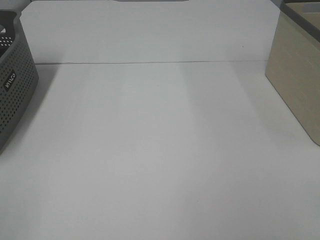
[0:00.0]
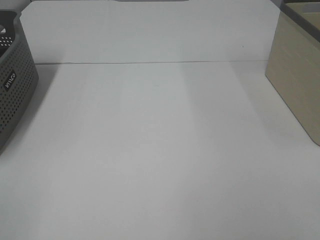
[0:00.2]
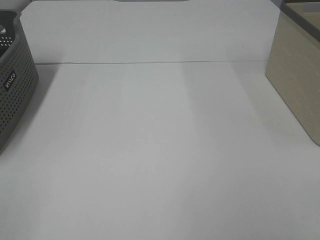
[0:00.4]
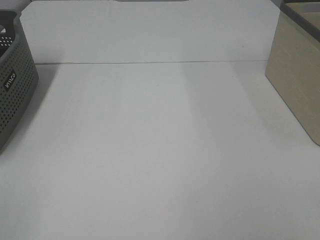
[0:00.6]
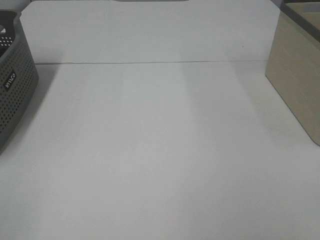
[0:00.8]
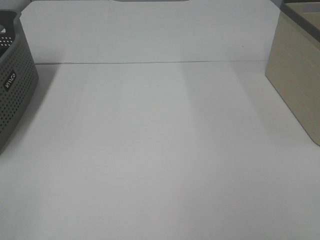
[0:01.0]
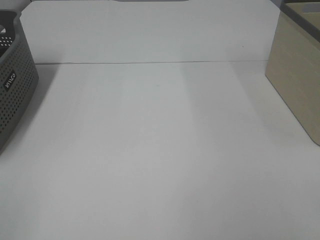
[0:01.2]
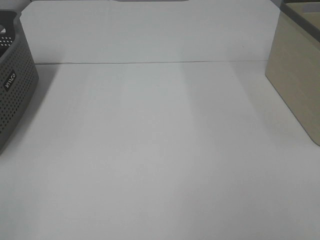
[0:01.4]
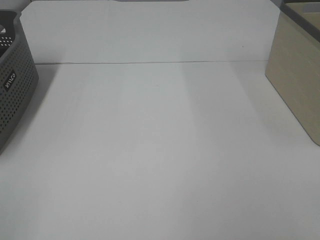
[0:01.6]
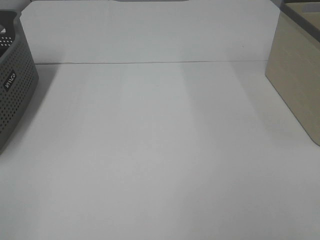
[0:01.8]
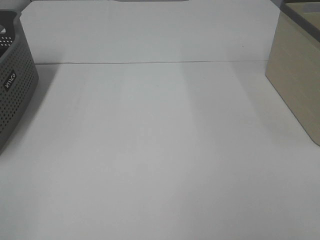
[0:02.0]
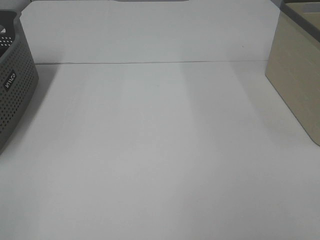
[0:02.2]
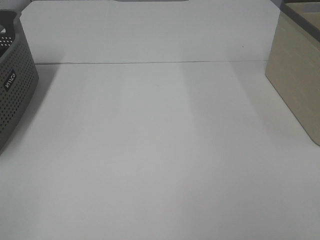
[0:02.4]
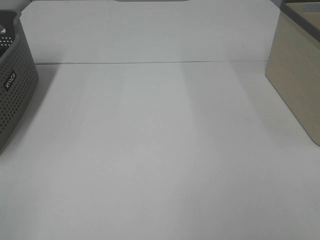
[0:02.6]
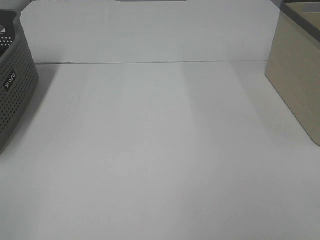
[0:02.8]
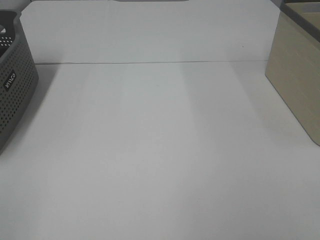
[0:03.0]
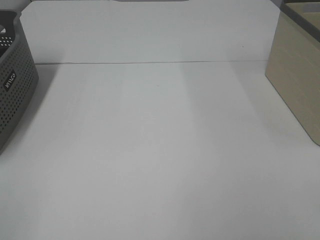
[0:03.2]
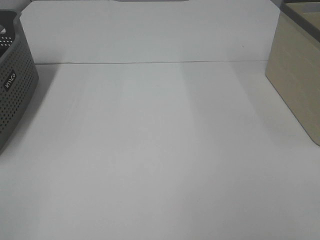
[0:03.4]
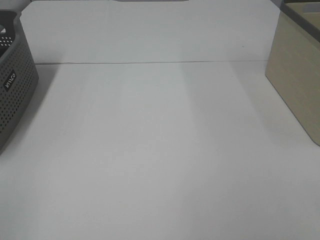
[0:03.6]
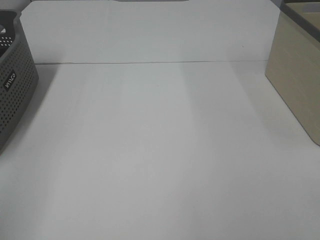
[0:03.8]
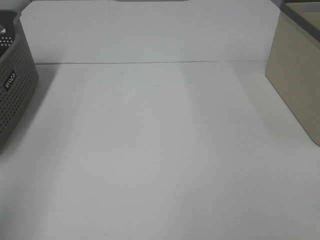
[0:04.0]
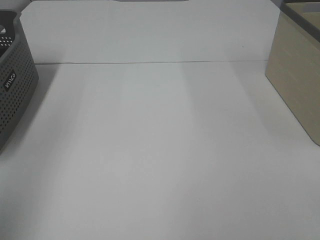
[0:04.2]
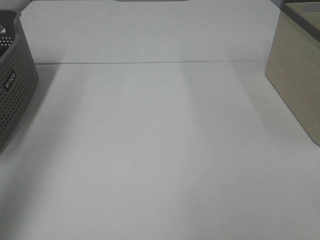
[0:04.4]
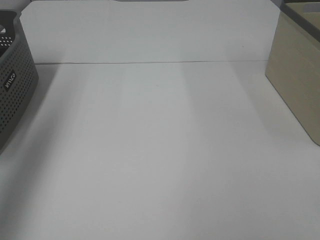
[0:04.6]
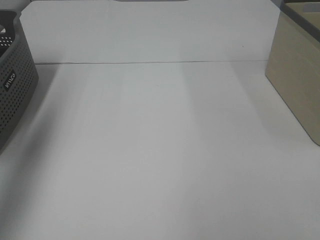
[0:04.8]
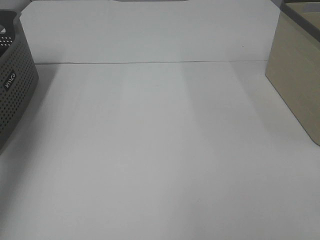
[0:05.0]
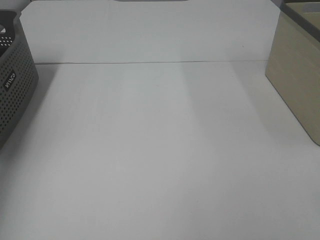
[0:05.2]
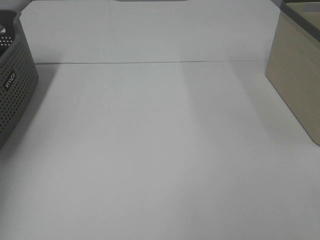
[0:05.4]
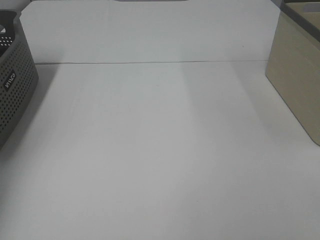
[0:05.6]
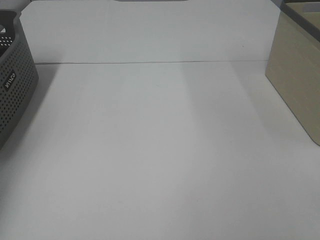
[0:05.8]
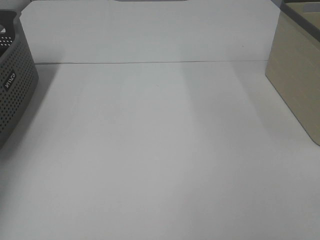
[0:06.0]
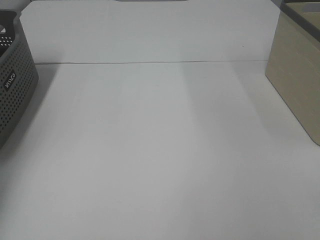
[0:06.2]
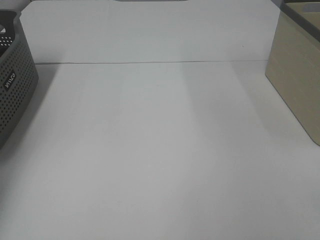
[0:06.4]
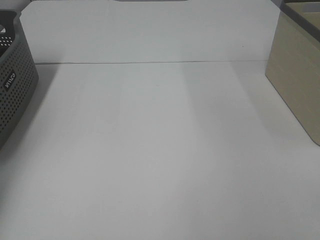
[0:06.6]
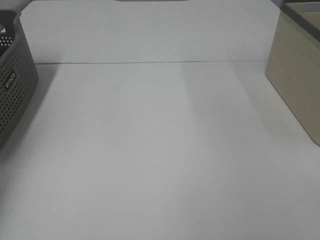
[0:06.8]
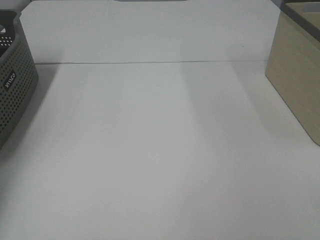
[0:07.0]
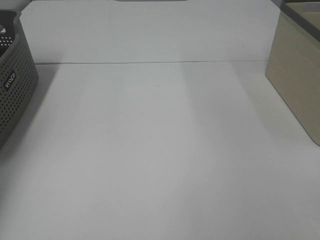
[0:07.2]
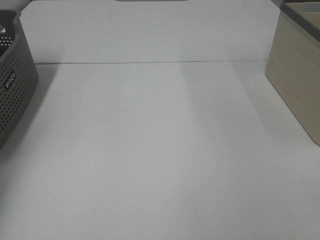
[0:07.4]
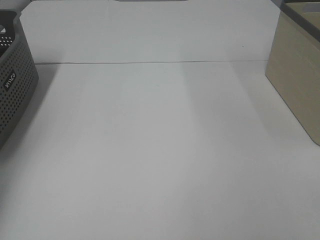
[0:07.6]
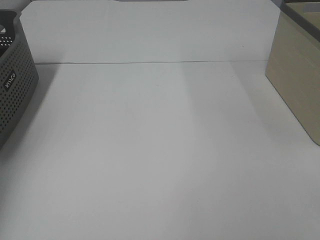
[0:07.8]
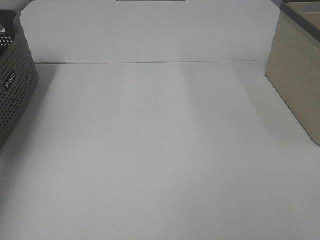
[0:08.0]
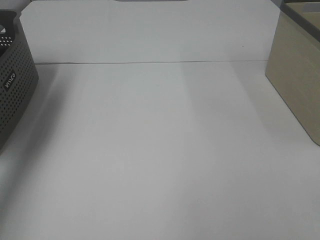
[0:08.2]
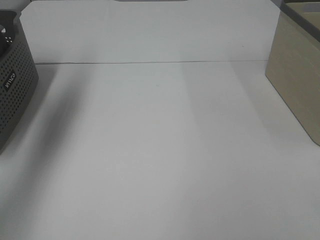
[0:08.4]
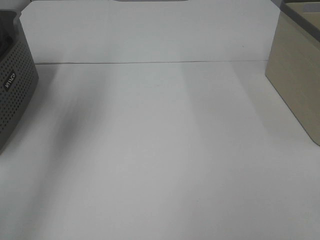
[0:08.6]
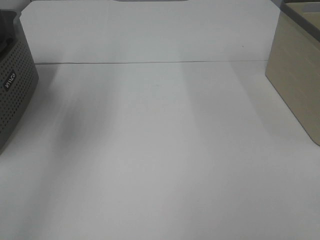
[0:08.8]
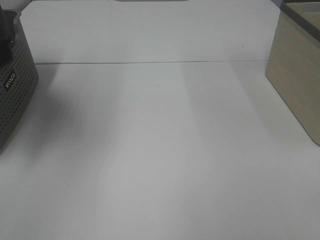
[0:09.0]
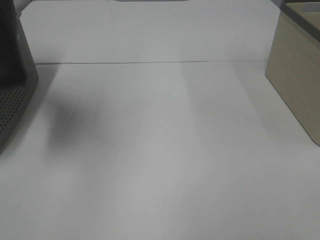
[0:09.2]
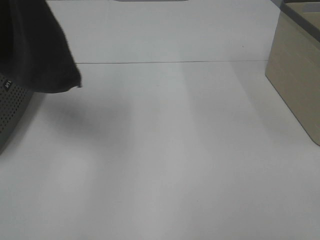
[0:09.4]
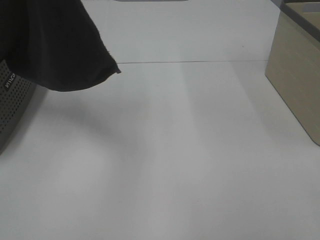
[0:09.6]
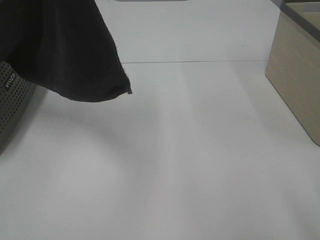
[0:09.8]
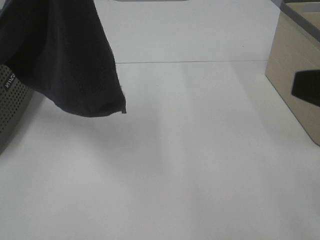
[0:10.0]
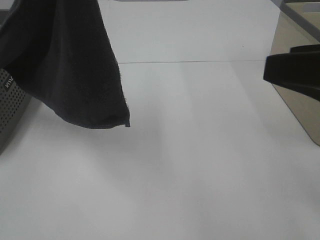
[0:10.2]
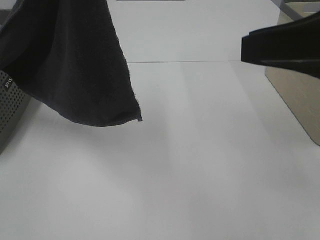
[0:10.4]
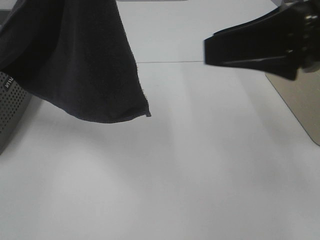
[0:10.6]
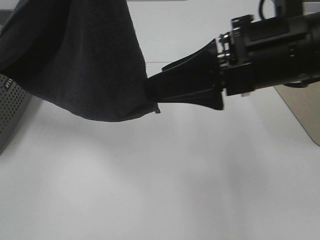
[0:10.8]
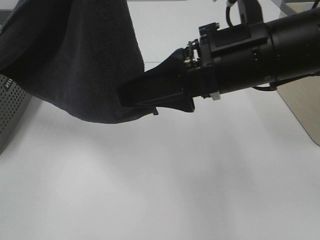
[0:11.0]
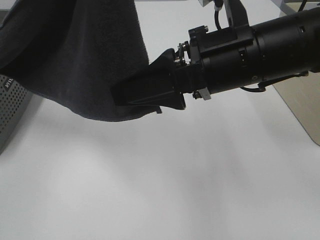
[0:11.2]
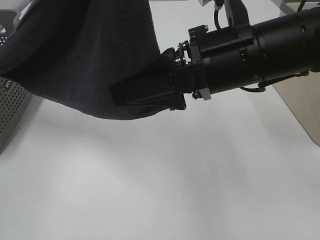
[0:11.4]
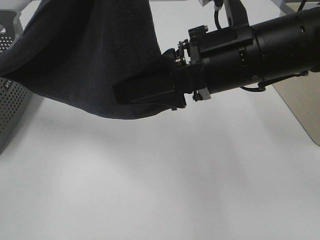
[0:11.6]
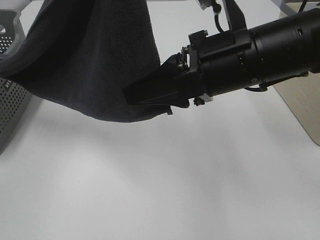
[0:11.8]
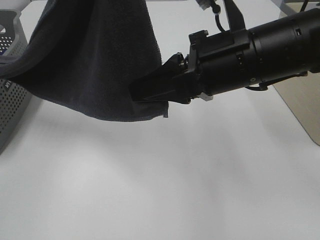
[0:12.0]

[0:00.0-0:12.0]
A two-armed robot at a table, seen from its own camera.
Task of the whole recording: Remove the towel and place it.
0:00.0 to 0:03.0: Both grippers stay put.
0:03.0 to 0:04.4: The left gripper shifts approximately 25 cm forward and upward.
0:04.4 to 0:06.0: The left gripper travels forward, downward and to the left by some 35 cm.
0:07.6 to 0:09.0: The left gripper heads upward, to the right and backward, covering roughly 35 cm.
0:09.0 to 0:10.4: The left gripper heads to the right and backward, covering roughly 15 cm; the right gripper heads forward, covering about 20 cm.
0:10.4 to 0:12.0: The right gripper goes approximately 15 cm to the left and downward, and closes.

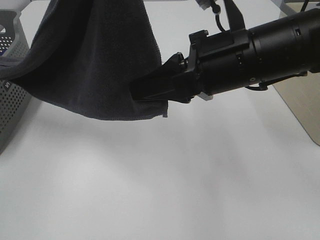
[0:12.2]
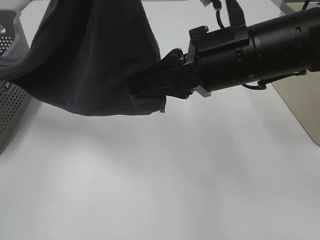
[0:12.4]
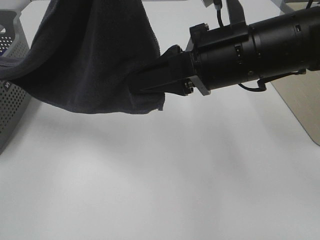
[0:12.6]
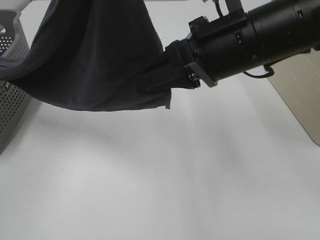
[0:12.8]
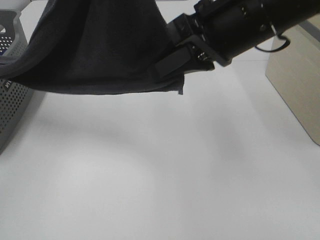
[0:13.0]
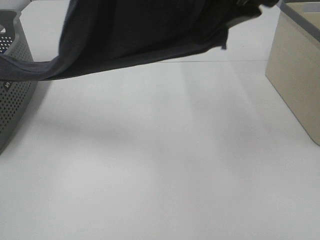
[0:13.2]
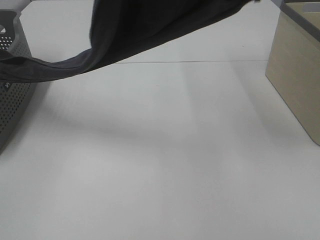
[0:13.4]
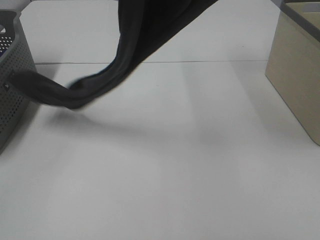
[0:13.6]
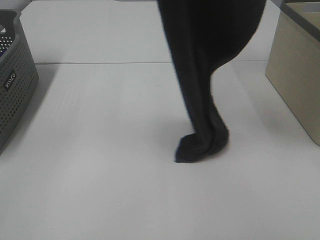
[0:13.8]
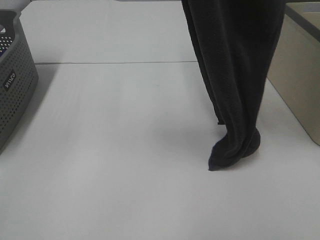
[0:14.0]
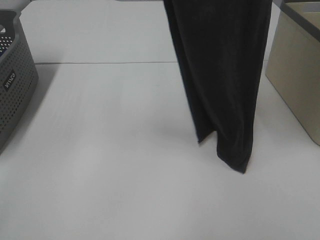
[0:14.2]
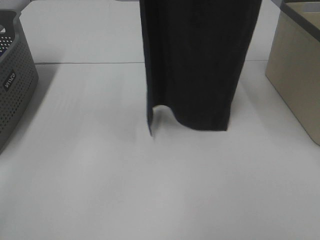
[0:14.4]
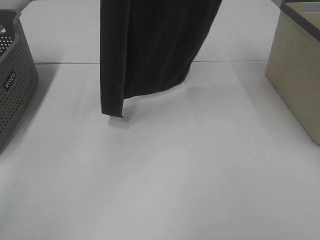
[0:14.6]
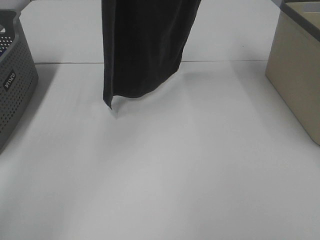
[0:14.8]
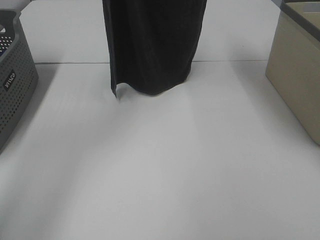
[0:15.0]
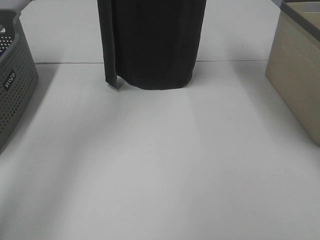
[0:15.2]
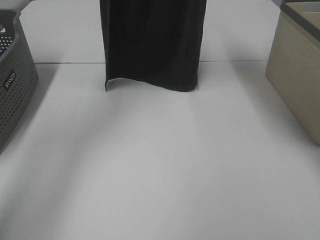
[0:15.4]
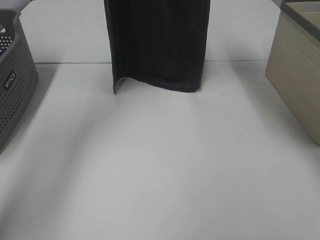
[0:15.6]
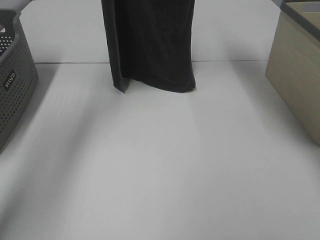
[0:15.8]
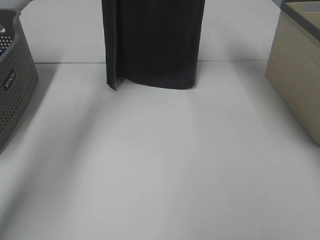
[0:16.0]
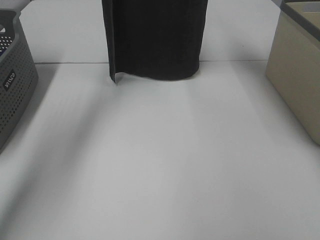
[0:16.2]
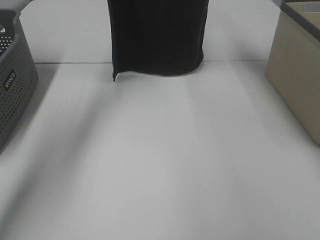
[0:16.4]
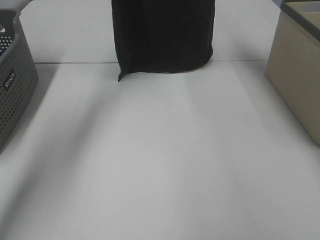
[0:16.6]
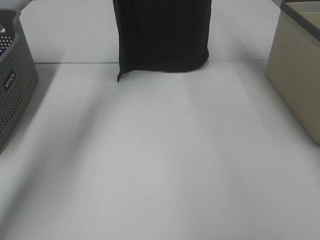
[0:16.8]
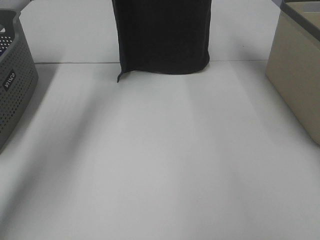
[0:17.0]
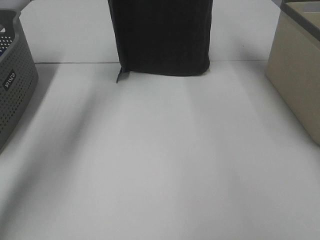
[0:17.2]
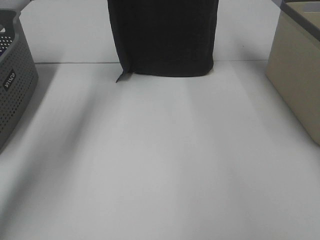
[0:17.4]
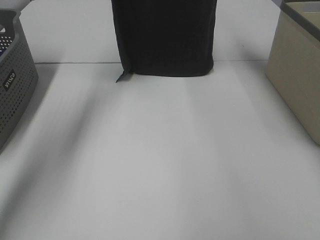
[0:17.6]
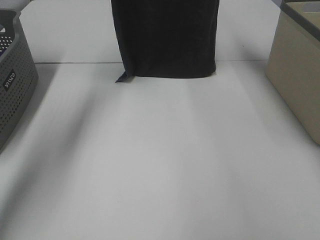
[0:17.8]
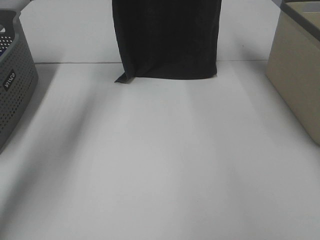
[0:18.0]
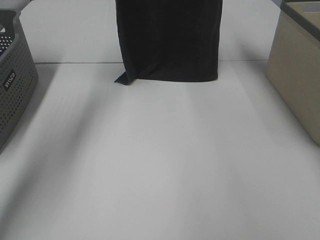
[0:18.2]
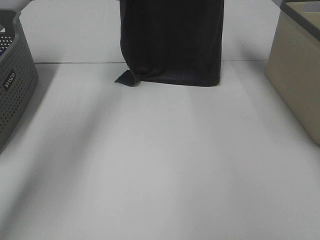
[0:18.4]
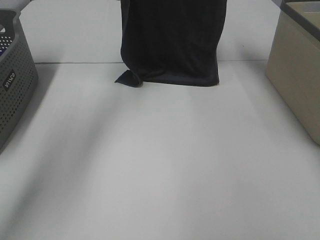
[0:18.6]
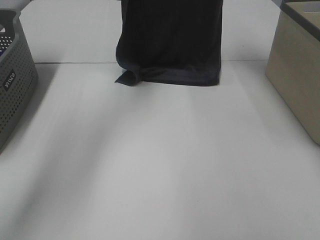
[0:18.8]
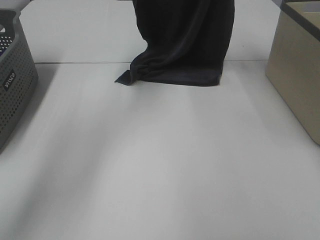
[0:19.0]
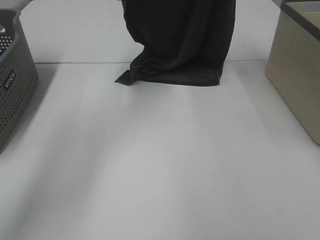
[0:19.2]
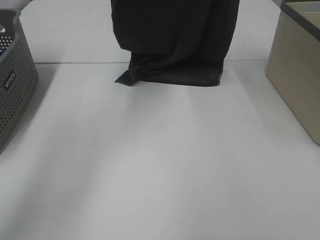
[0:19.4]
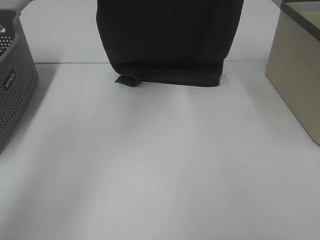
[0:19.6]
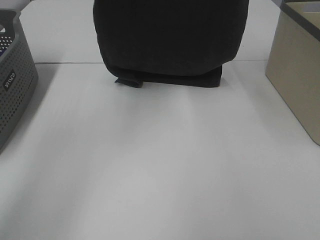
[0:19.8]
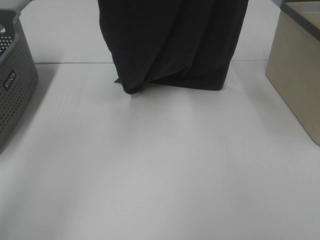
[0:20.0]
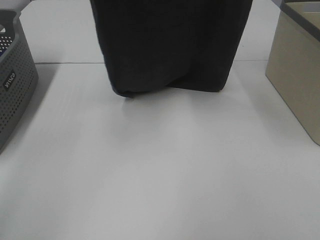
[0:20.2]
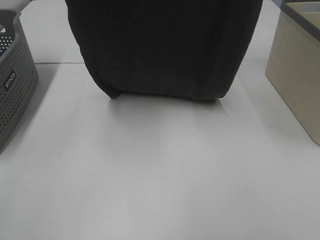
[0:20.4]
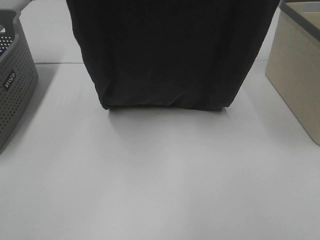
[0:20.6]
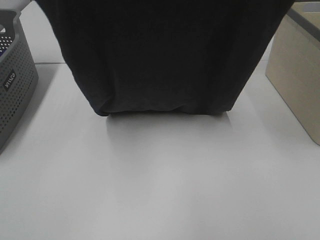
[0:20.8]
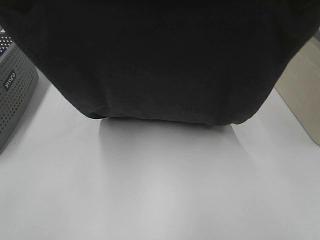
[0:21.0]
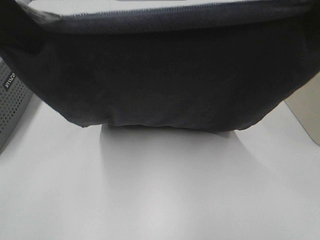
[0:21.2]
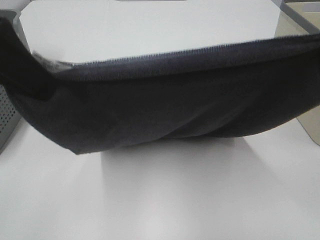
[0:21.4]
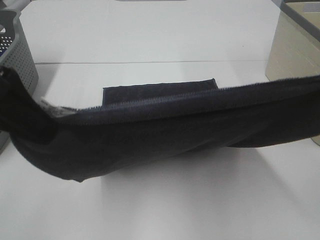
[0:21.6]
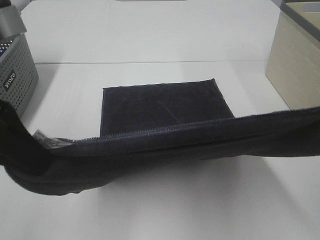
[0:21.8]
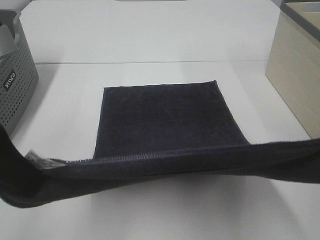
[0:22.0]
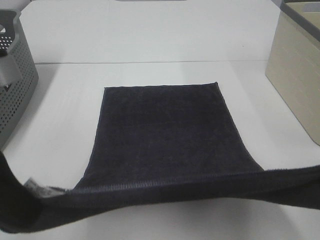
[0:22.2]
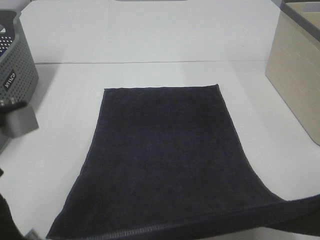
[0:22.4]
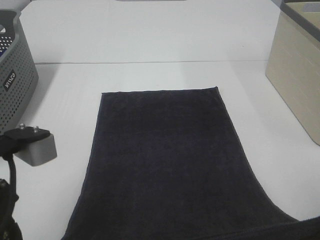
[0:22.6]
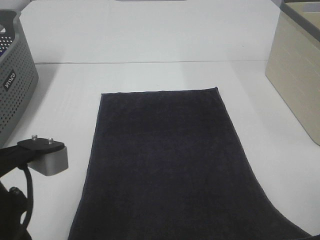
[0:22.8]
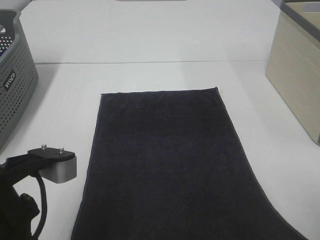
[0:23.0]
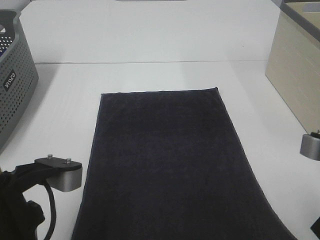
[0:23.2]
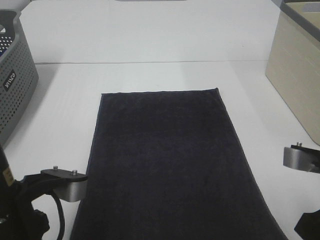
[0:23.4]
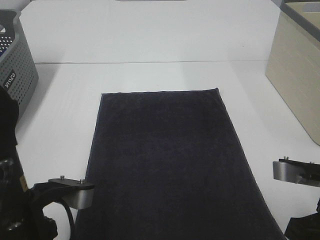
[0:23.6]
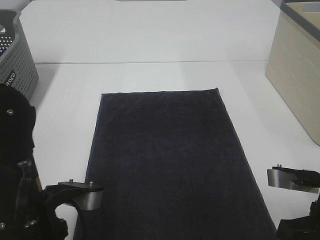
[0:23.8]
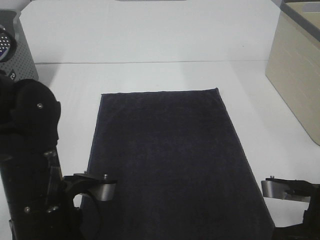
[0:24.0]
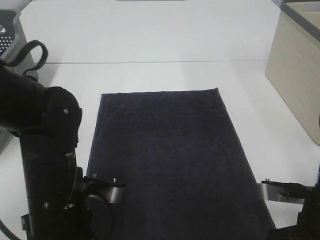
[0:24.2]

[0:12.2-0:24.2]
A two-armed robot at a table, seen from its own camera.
Task of the whole recording: Remove the towel and place it.
Step, 0:13.4 to 0:20.4: Left hand: spread the grey towel flat on the table.
Step, 0:13.4 to 0:20.4: Right hand: spread the grey towel flat on the table.
0:12.2 to 0:13.8: The right gripper heads upward, covering approximately 25 cm, while the left gripper changes place by approximately 5 cm.
0:13.8 to 0:15.2: The right gripper goes about 15 cm forward, while the left gripper shifts roughly 20 cm forward and downward.
0:15.2 to 0:16.6: The two grippers go some 10 cm forward.
0:16.6 to 0:18.2: The grippers stay close to where they were, moving slightly.
0:18.2 to 0:19.8: The left gripper is displaced backward and upward by some 15 cm. The right gripper shifts approximately 10 cm backward.
0:19.8 to 0:21.2: Both grippers travel together backward, roughly 20 cm.
0:21.2 to 0:22.6: Both grippers travel together downward and backward, roughly 15 cm.
0:22.6 to 0:24.2: The right gripper shifts roughly 15 cm downward; the left gripper shifts approximately 15 cm downward and forward.
